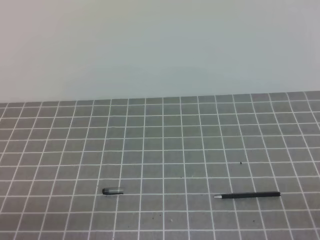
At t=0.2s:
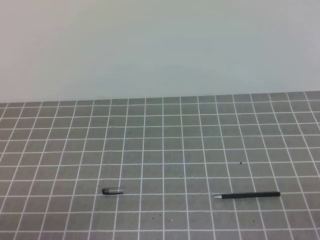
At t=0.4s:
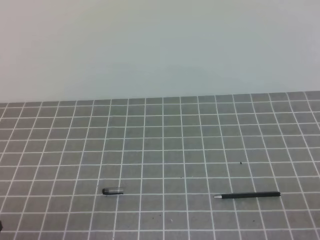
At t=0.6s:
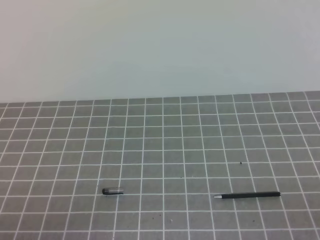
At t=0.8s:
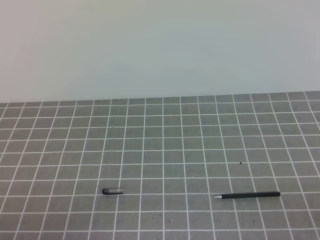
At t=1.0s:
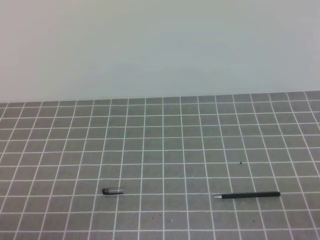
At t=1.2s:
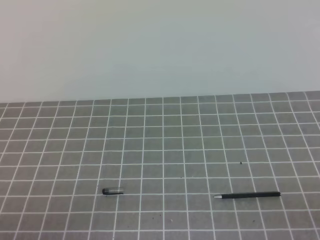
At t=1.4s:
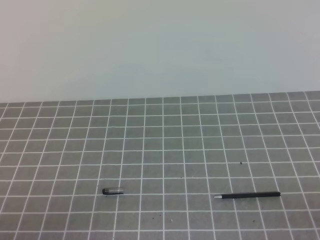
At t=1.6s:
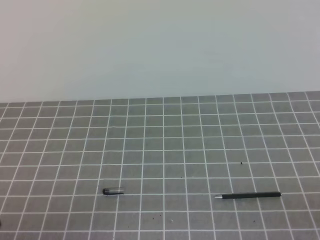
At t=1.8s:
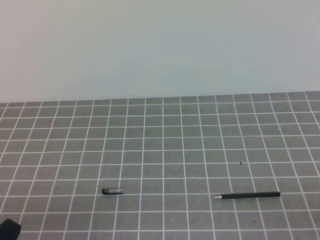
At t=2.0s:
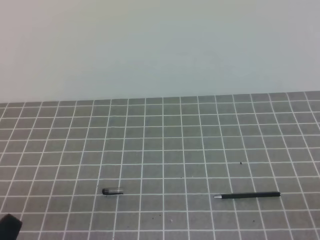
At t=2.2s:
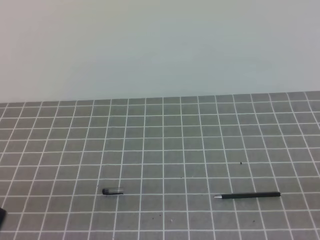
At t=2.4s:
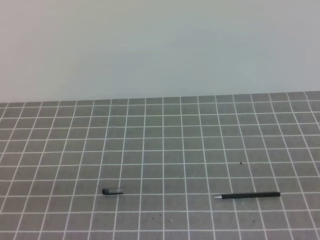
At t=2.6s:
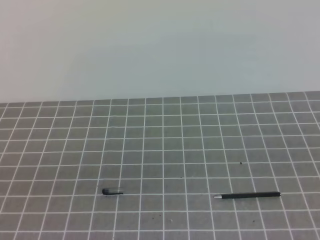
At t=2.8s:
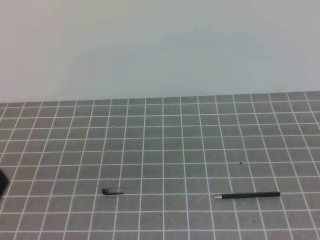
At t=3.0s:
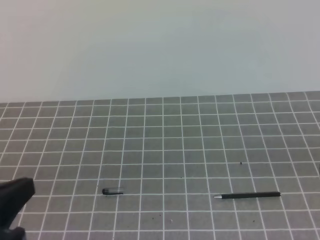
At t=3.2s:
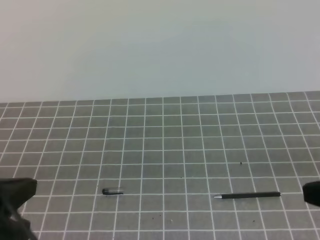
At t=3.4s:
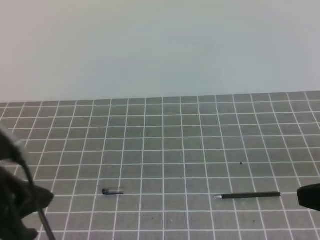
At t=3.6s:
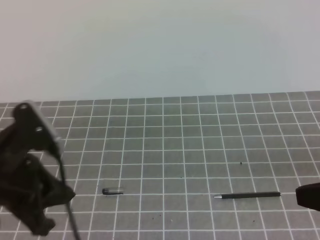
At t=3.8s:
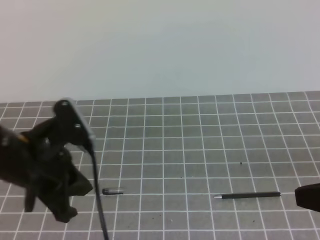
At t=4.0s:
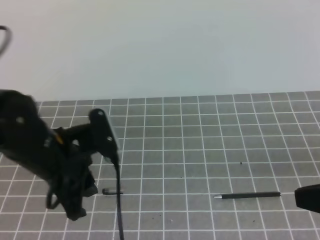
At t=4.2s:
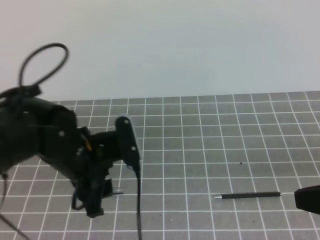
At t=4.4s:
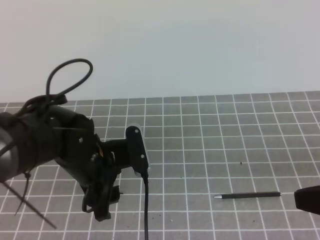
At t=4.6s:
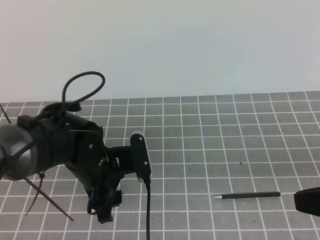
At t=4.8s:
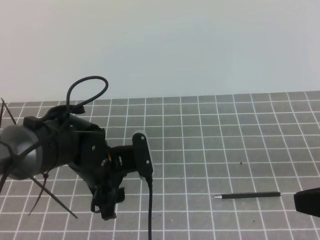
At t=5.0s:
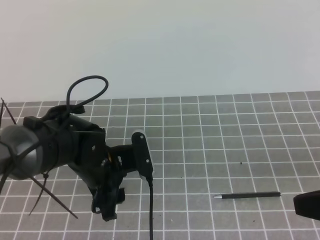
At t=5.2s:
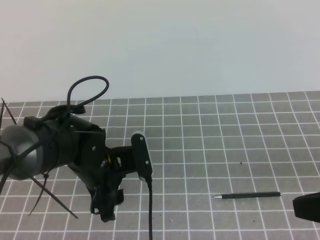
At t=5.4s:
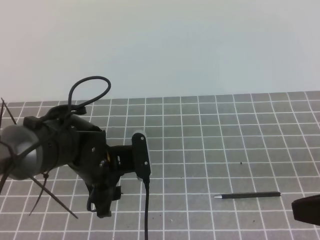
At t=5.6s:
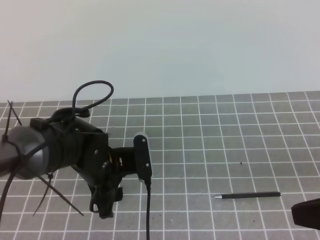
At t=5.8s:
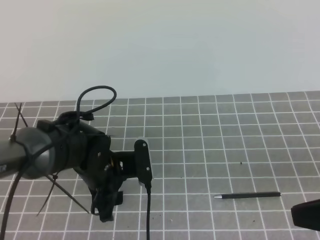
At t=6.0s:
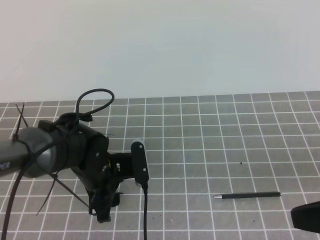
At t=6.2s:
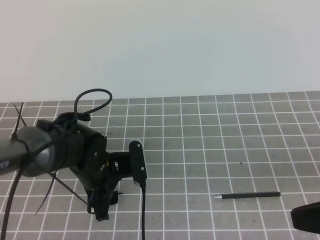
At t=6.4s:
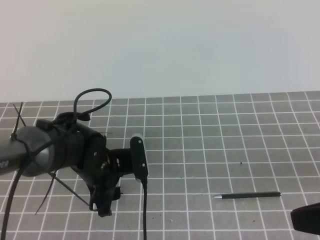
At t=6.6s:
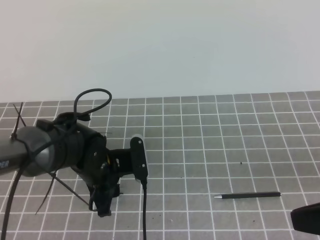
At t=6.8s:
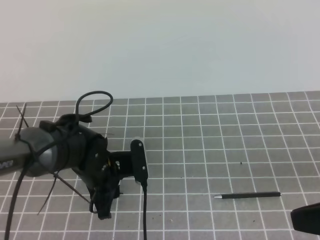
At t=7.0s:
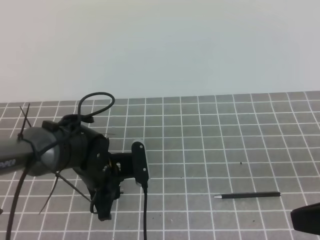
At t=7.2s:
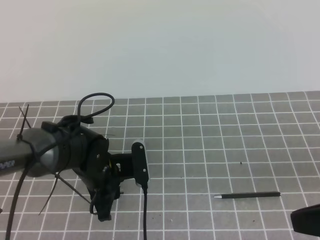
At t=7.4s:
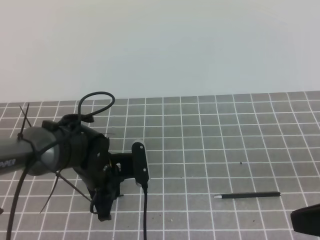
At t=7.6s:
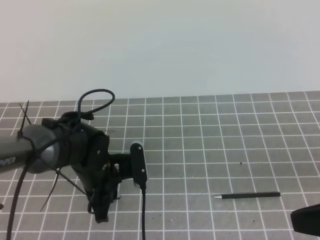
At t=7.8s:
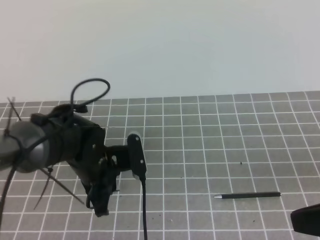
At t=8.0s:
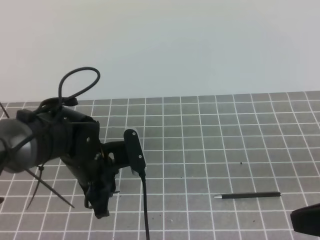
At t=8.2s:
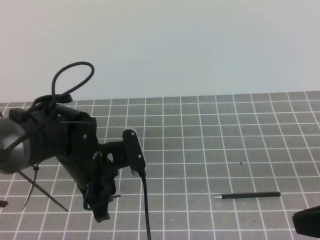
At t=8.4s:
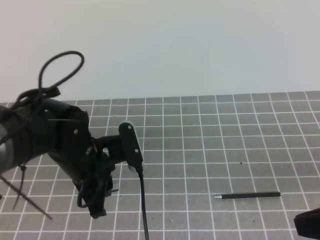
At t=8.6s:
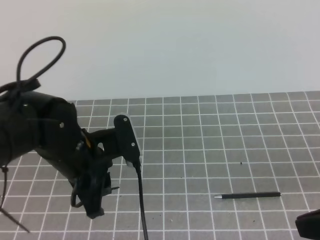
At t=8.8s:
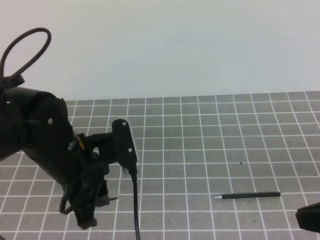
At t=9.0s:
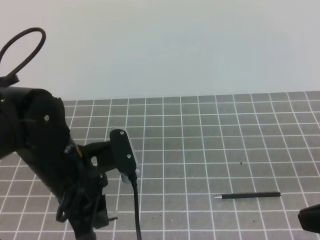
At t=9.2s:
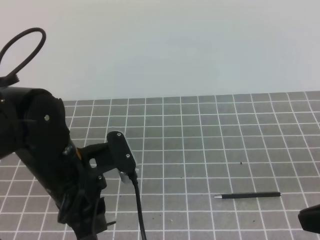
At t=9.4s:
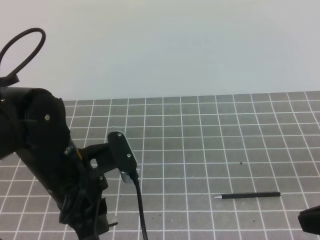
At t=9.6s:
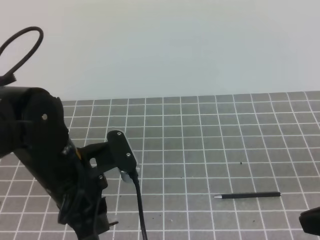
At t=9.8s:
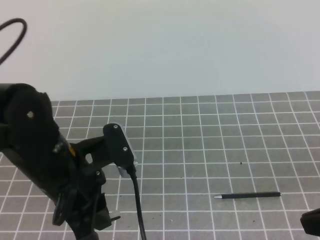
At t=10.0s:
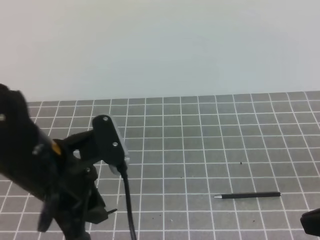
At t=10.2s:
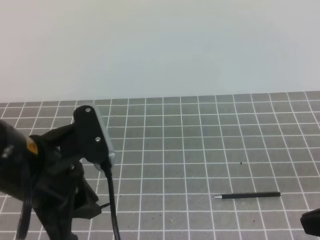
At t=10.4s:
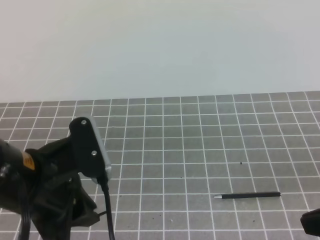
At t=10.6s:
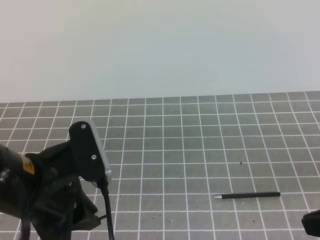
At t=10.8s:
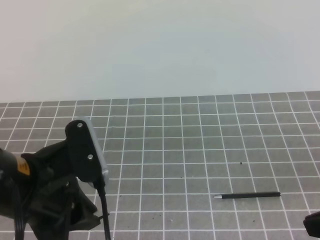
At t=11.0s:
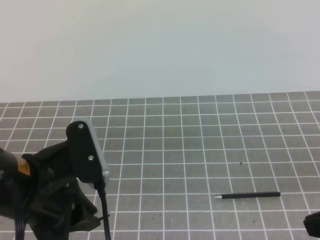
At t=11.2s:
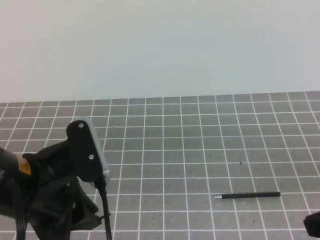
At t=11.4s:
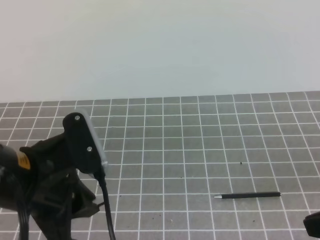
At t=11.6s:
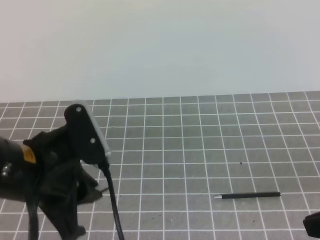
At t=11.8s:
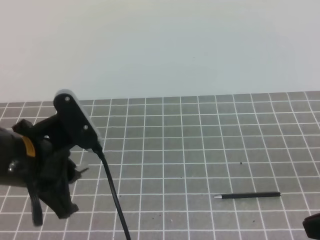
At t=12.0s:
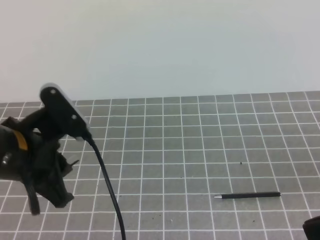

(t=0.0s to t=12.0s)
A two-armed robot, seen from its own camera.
Task of the whole recording: on the grey tablecloth, hold the pen cap in one hand and the pen in the other, then cover the pen cap.
Step, t=0.0s - t=5.0s: Pick up the pen cap.
Step, t=5.2s - t=11.8s: Pick up the pen.
t=1.6s - t=3.0s: The left gripper is displaced upward by some 10 cm.
t=3.0s - t=4.4s: The left gripper shifts some 25 cm forward, to the right and downward, and opens its fingers.
t=4.4s - t=6.0s: The left gripper goes roughly 5 cm downward.
t=6.0s - t=7.6s: The left gripper closes.
t=7.6s - t=9.0s: The left gripper is displaced upward and backward by roughly 15 cm.
t=9.0s - t=10.4s: The left gripper travels backward by about 5 cm.

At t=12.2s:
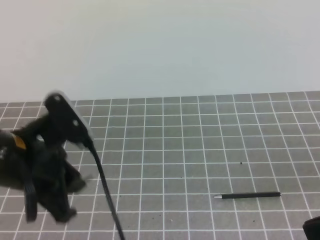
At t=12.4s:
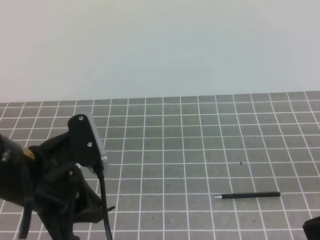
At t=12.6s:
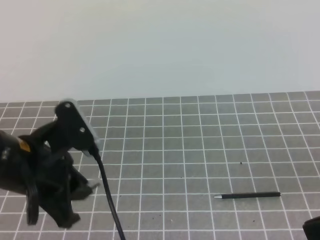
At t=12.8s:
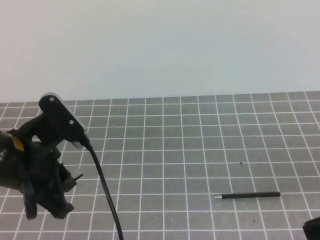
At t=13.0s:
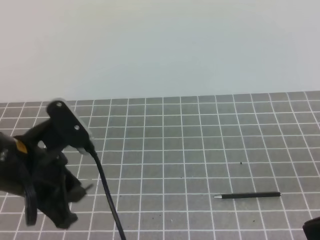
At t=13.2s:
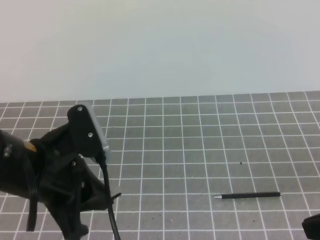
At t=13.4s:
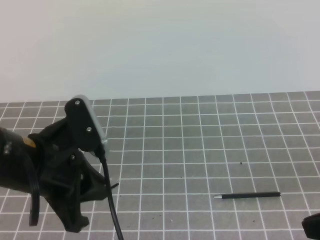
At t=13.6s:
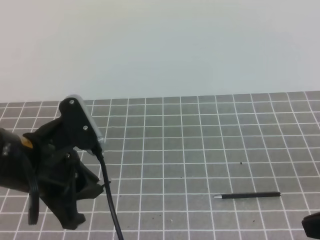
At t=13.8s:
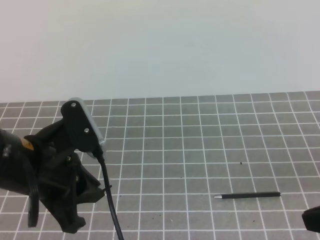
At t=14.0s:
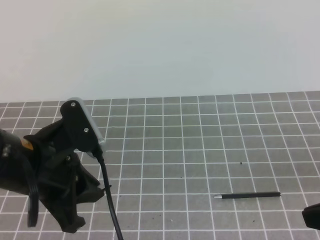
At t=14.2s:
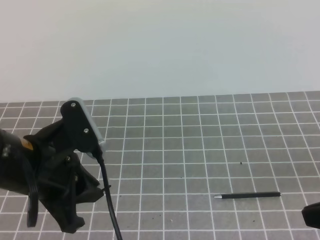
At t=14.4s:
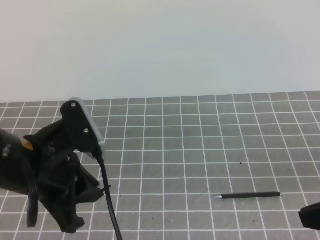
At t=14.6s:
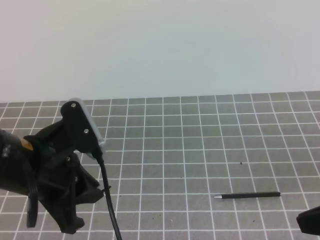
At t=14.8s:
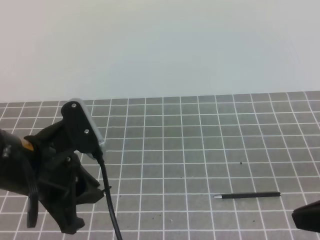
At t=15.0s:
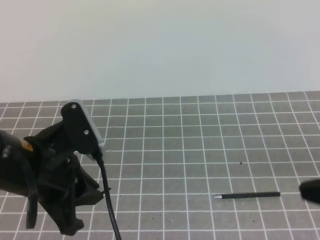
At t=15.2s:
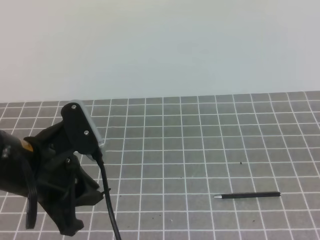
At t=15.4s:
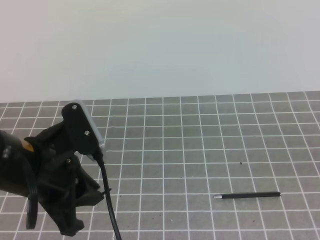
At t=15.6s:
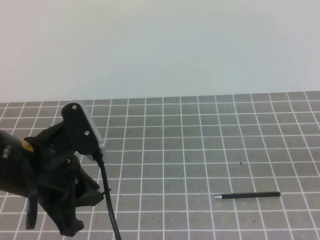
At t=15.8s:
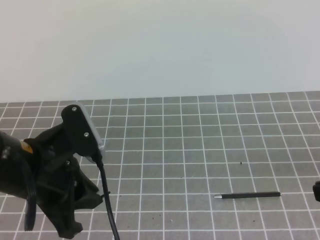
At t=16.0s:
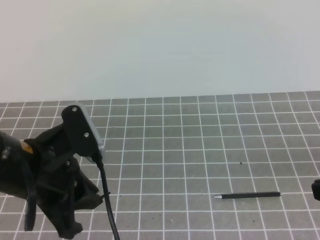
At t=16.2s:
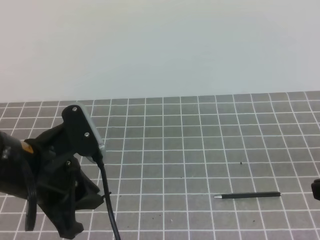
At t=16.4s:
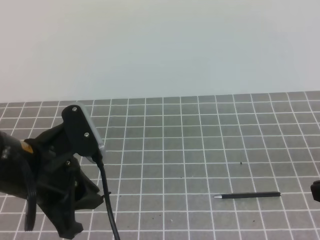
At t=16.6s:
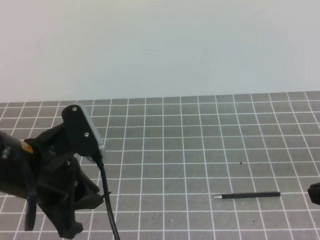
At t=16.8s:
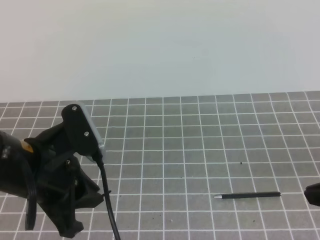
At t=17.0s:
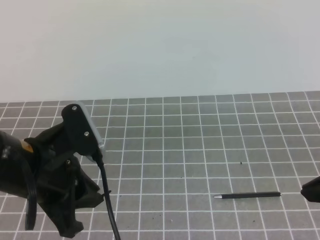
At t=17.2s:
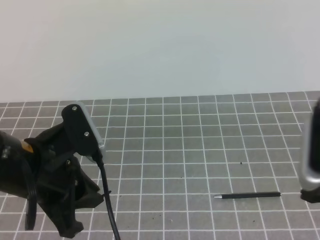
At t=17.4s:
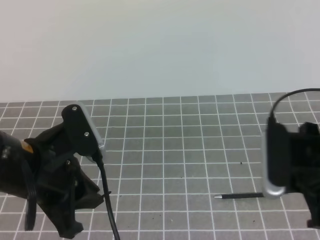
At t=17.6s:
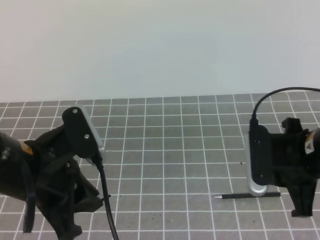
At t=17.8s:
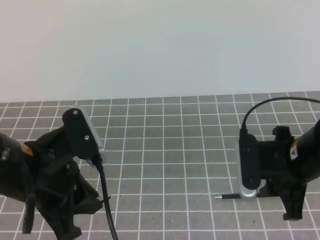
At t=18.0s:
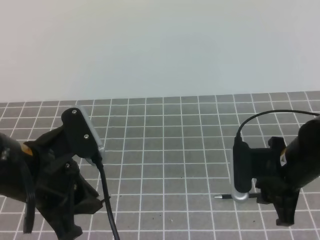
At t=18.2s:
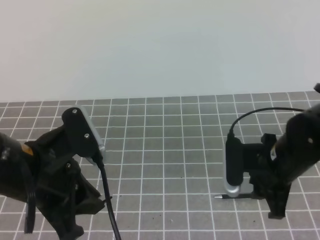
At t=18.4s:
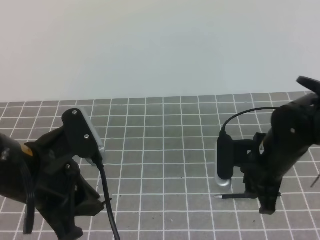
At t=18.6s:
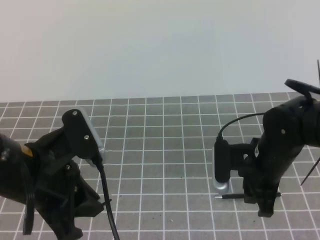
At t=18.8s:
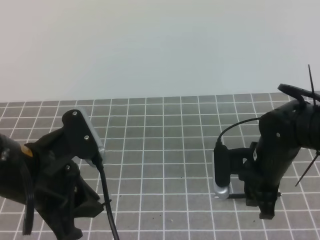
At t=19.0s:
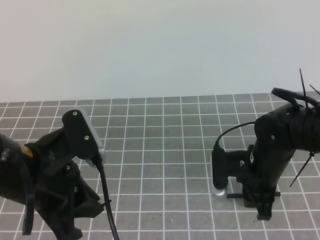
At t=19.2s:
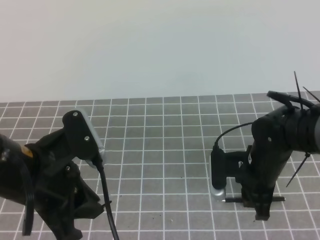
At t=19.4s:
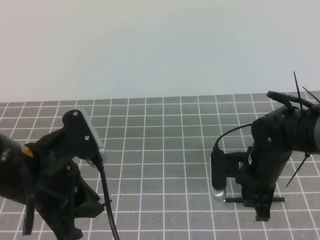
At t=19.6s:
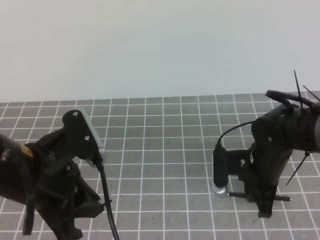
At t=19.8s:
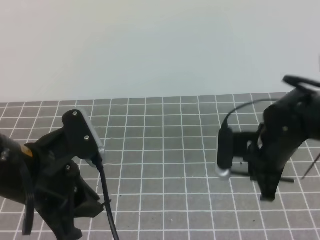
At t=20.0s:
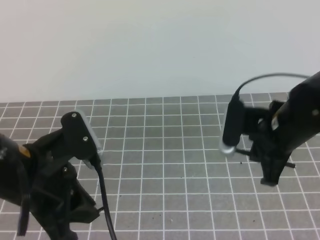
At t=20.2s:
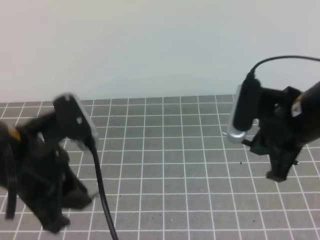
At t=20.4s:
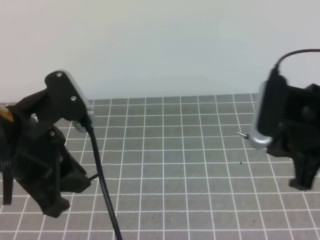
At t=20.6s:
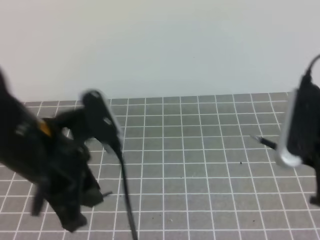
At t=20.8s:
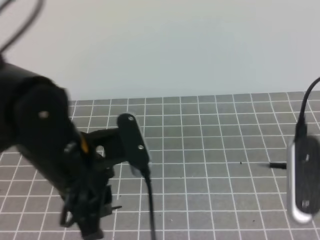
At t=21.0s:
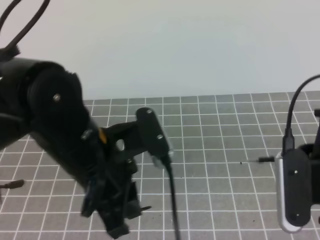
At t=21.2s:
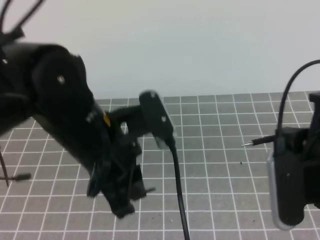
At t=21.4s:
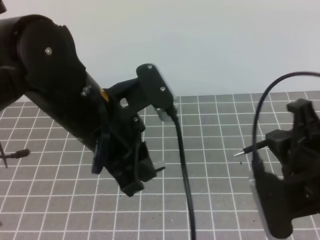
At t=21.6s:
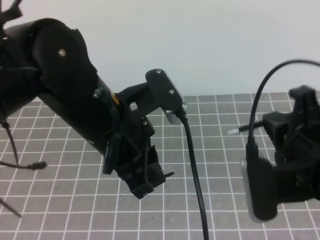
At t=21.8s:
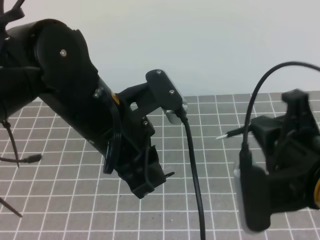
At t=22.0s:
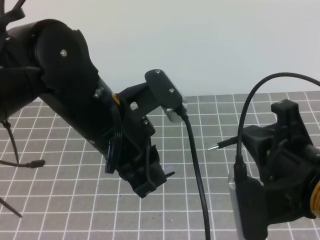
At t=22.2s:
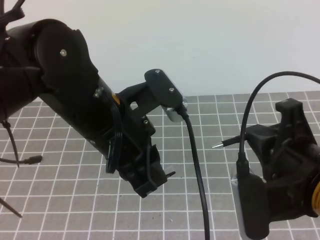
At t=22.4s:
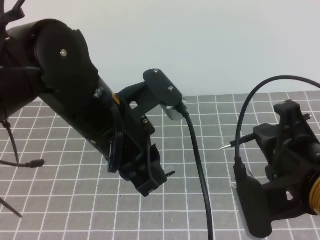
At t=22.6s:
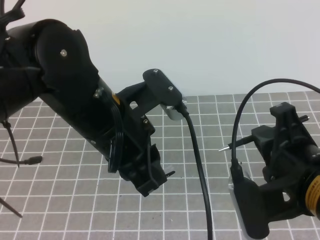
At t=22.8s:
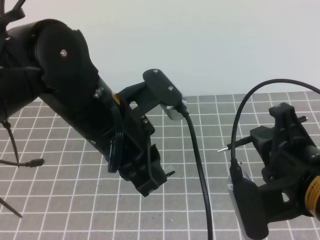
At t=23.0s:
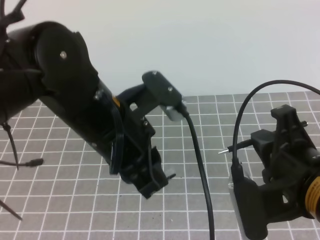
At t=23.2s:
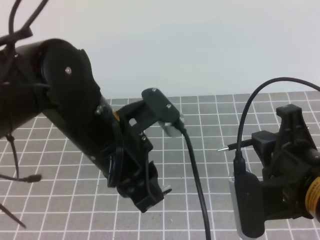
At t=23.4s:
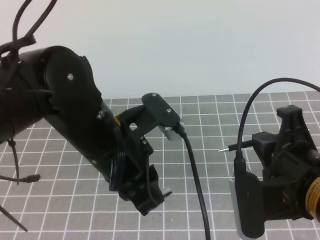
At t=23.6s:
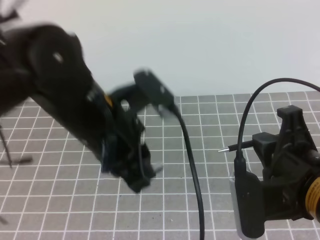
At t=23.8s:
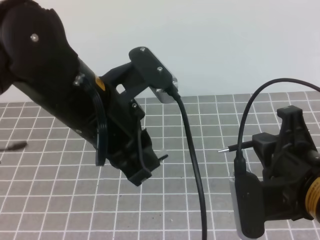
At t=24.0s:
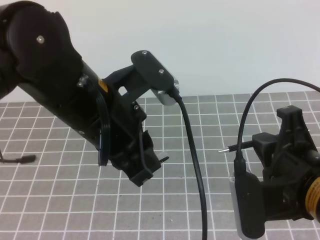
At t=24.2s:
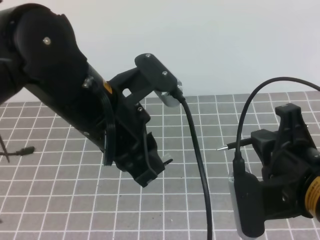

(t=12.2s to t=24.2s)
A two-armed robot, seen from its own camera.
Task of the whole recording: on the grey tablecloth, hold the pen cap in one hand and the pen in the other, then cover the pen cap.
Step, t=12.2s - t=18.0s: Insert the pen into the cap.
Step, t=18.2s - t=19.6s: Place the pen on the table.
t=12.2s - t=13.8s: The grippers stay close to where they were, moving slightly.
t=15.2s - t=16.6s: The grippers move only a little.
t=16.6s - t=18.2s: The right gripper heads forward, to the left and downward, covering approximately 20 cm, and opens its fingers.
t=18.2s - t=19.8s: The right gripper closes up.
t=19.8s - t=21.2s: The right gripper heads backward and upward, covering some 20 cm. Meanwhile the left gripper moves to the right, about 5 cm.
t=22.6s - t=24.2s: The grippers move only a little.
